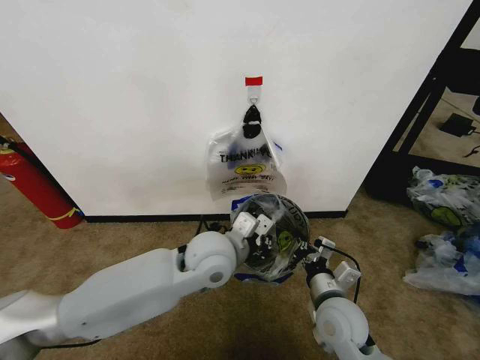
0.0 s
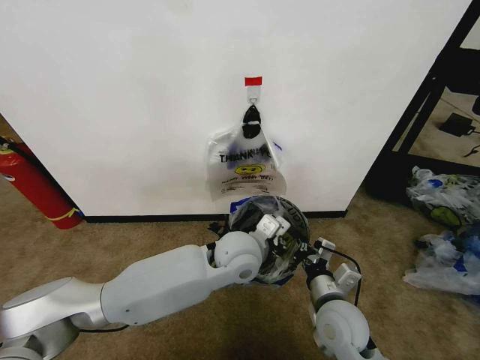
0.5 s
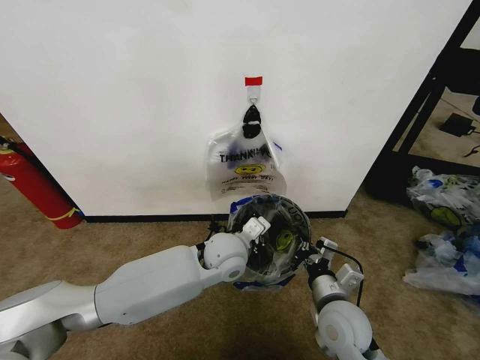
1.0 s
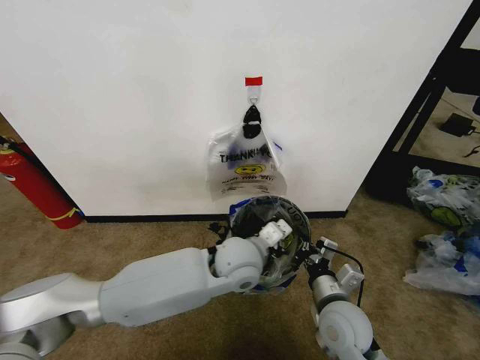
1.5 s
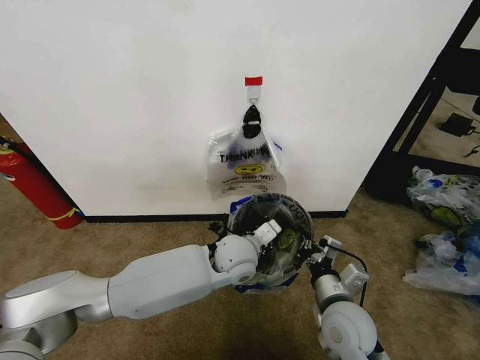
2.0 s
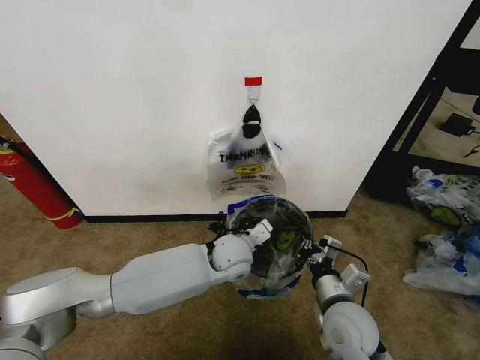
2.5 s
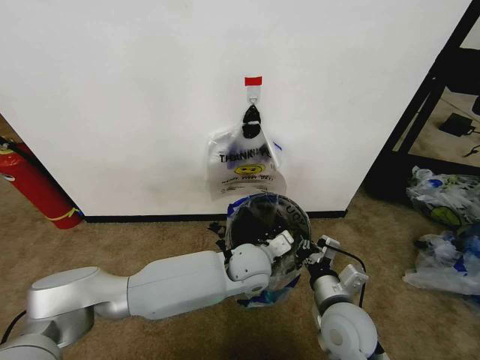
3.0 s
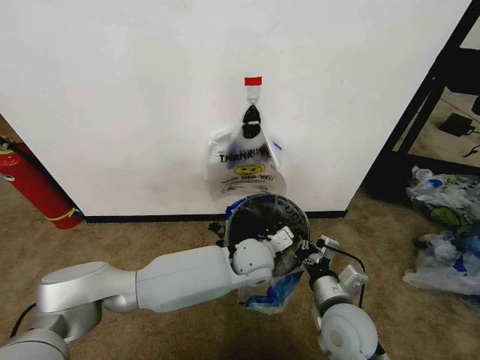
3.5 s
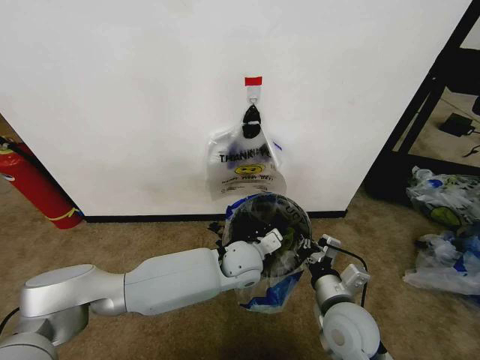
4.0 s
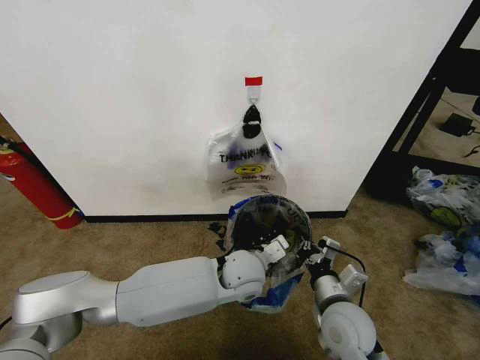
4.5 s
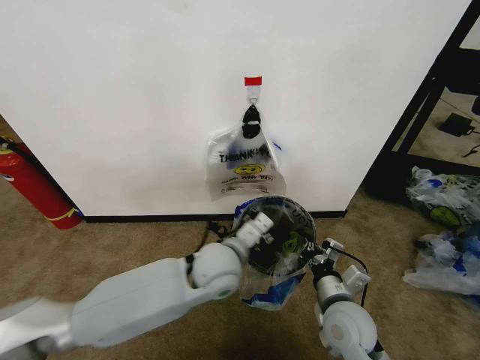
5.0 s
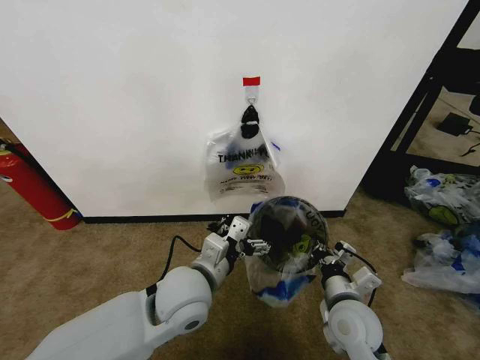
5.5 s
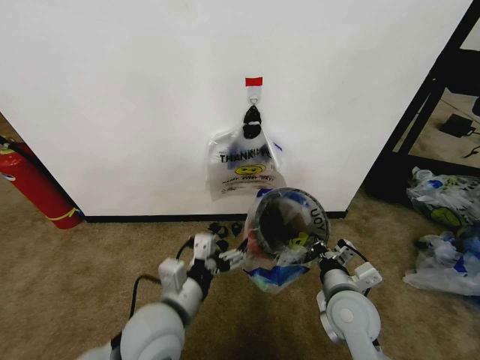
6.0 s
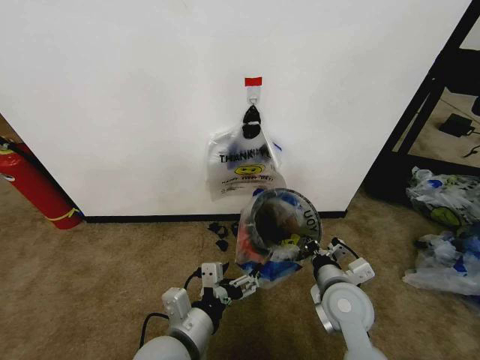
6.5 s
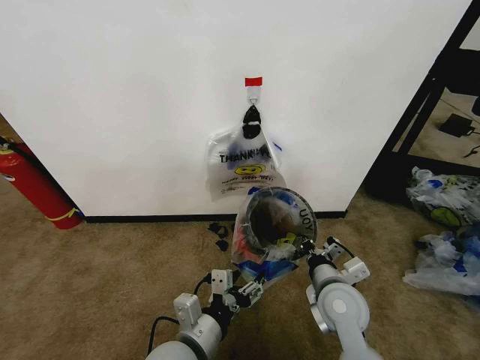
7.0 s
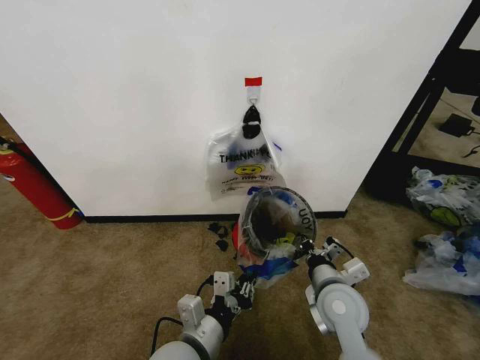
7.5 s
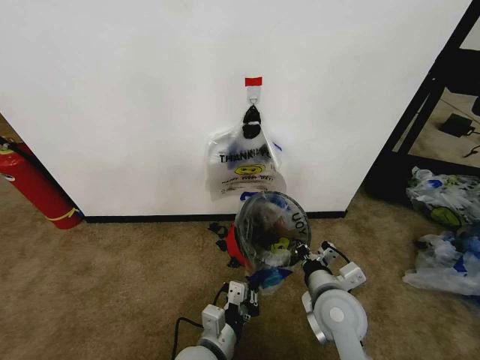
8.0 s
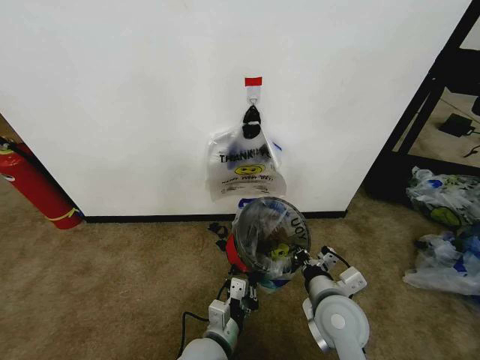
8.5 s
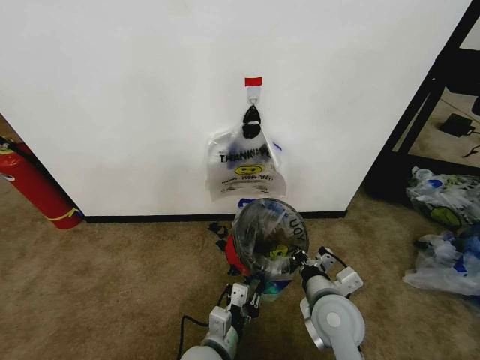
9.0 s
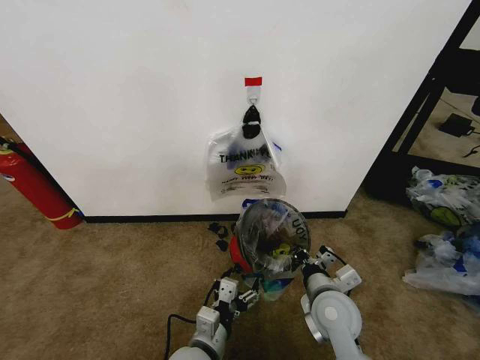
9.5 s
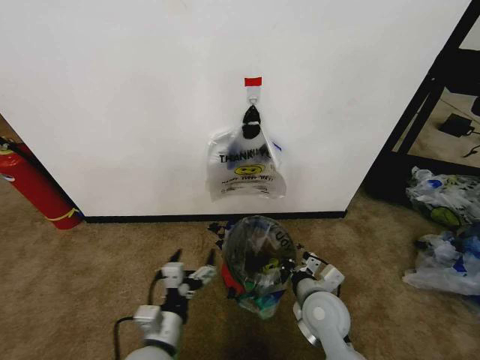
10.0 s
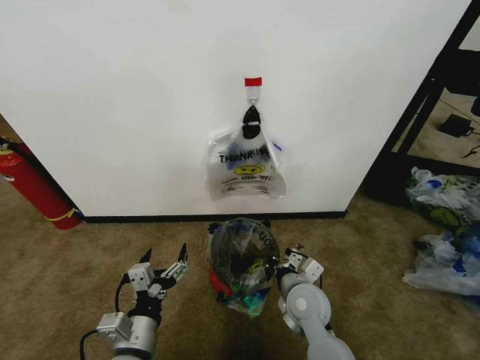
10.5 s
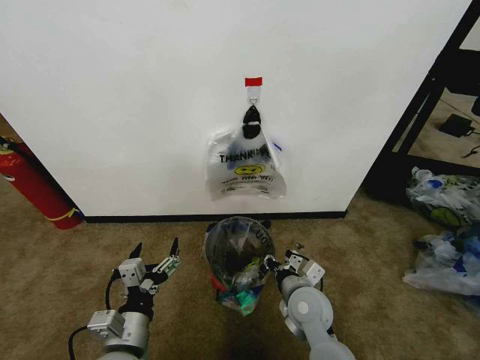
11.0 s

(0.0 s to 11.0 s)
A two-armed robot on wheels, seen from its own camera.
Task of the whole recording: Pick up the garbage bag from the wall and place it over the trash bin.
0.0 s - 2.0 s: The left gripper travels downward by approximately 5 cm.
2.0 s - 3.5 s: The grippers make only small movements.
3.5 s - 5.5 s: The left gripper heads to the left, backward and upward, covering about 20 cm, and opens its fingers.
5.5 s - 7.5 s: The left gripper moves backward and downward, some 10 cm, and closes up.
7.5 s - 9.0 s: The left gripper moves downward, about 10 cm.
9.0 s - 11.0 s: The left gripper is displaced to the left and upward by some 15 cm, and opens its fingers. Meanwhile the right gripper shifts roughly 5 cm downward, and opens.

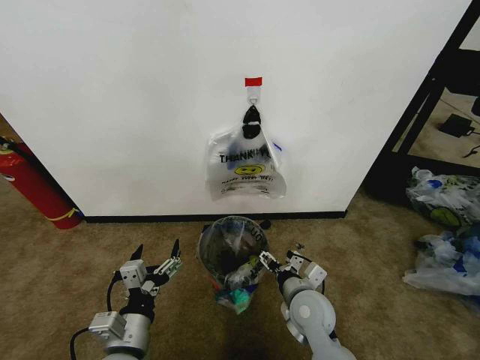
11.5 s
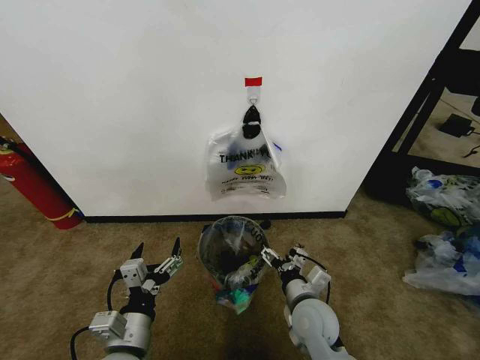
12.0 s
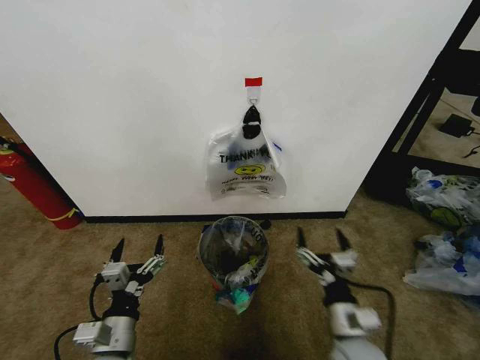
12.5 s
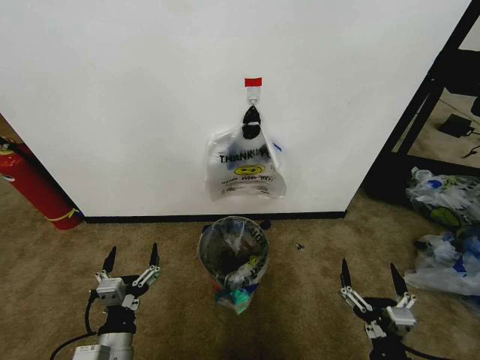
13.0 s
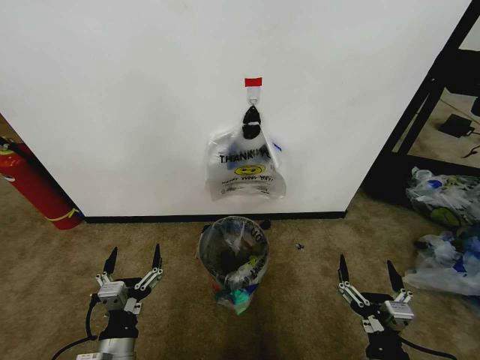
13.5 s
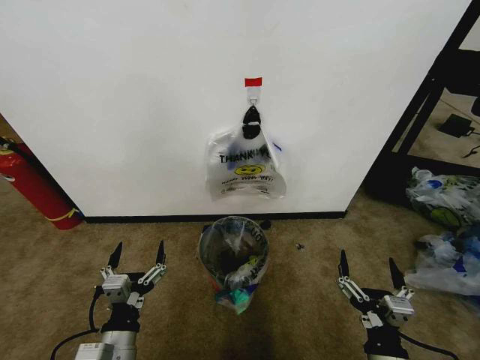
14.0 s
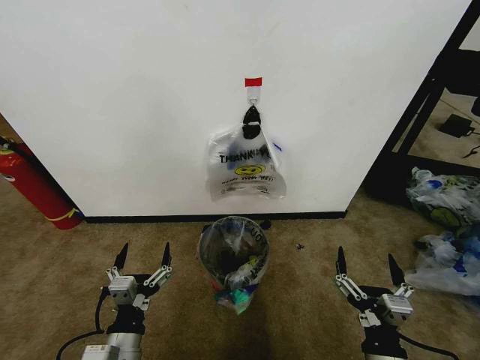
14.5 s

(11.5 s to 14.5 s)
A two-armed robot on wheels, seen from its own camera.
Task of the whole recording: Pick up the garbage bag from the wall and place it over the trash bin.
11.5 s - 13.0 s: The right gripper shifts approximately 25 cm backward and to the right, while the left gripper shifts by about 5 cm.
13.0 s - 14.5 s: The right gripper ends up about 5 cm from where it was.
